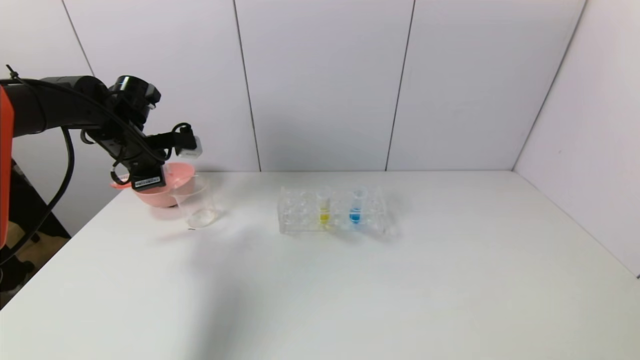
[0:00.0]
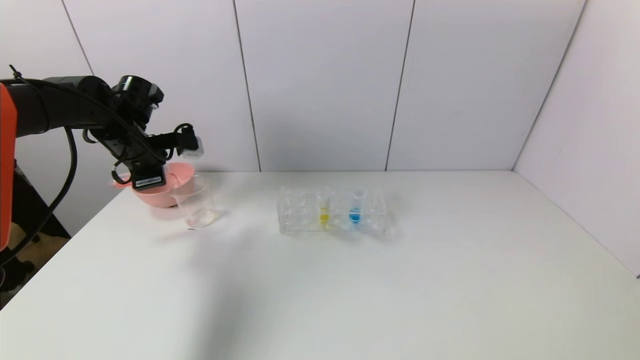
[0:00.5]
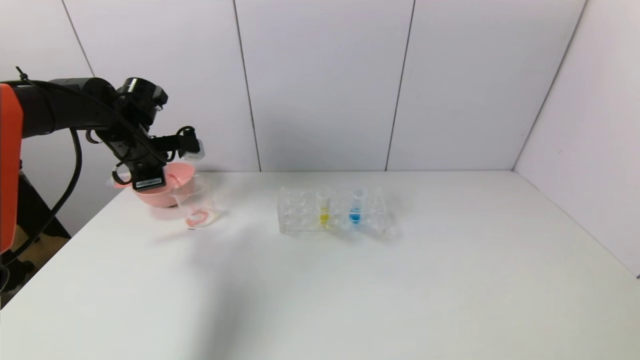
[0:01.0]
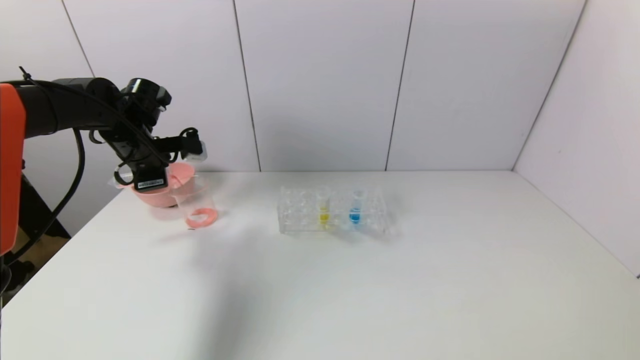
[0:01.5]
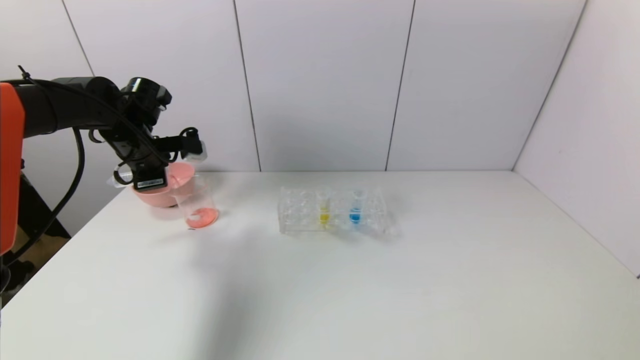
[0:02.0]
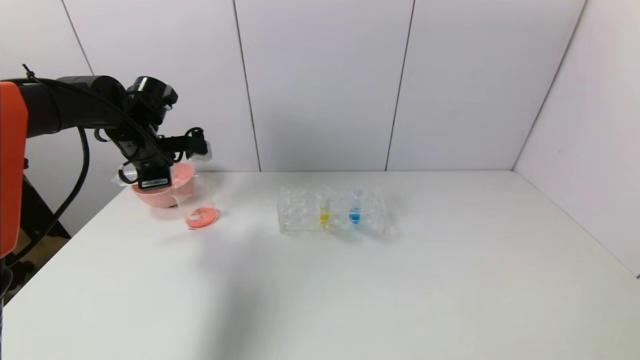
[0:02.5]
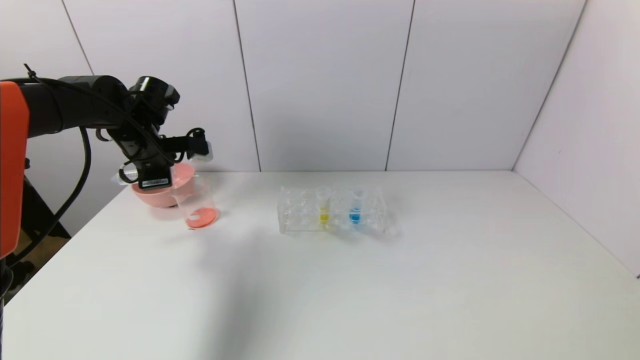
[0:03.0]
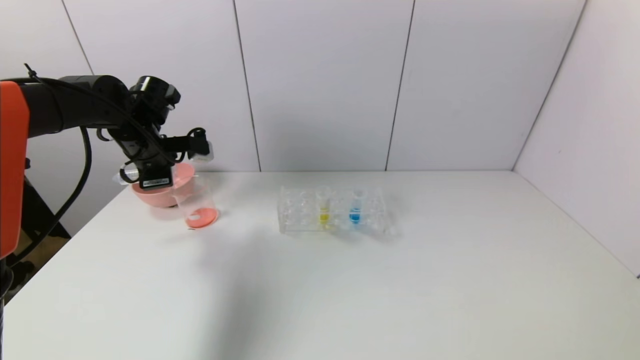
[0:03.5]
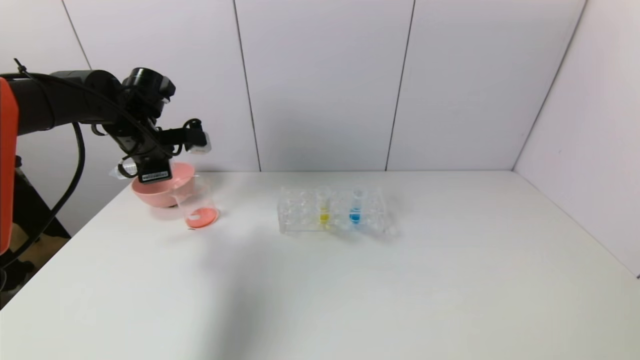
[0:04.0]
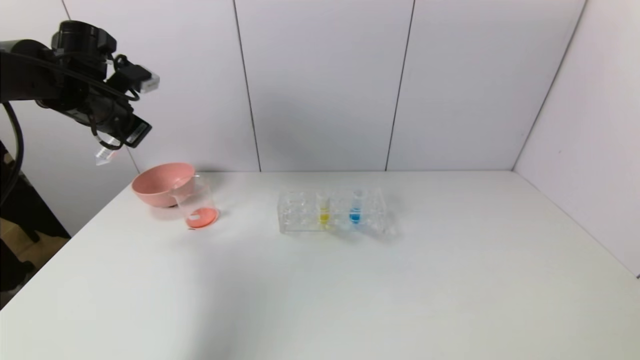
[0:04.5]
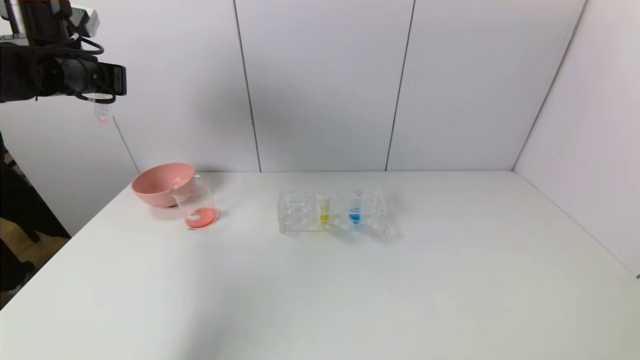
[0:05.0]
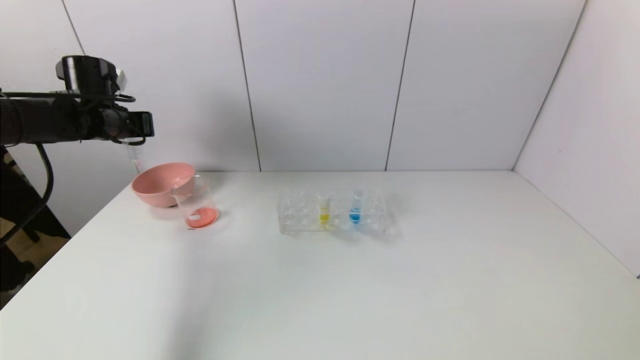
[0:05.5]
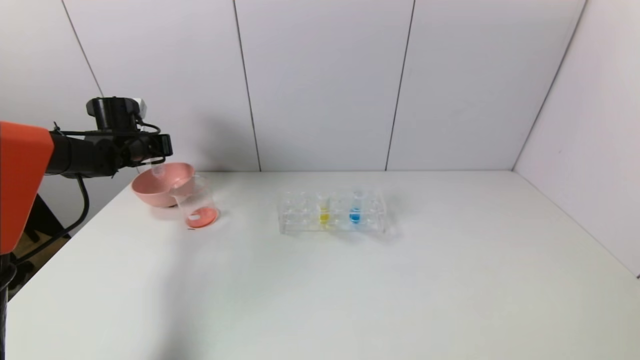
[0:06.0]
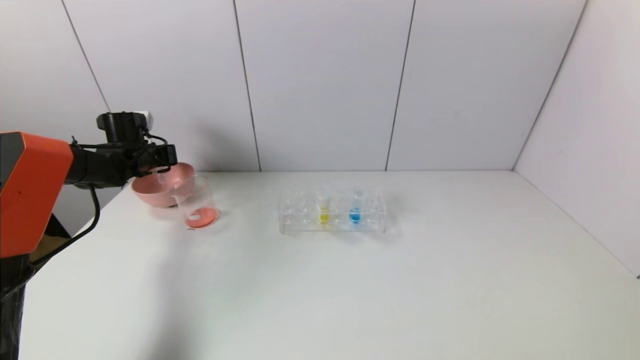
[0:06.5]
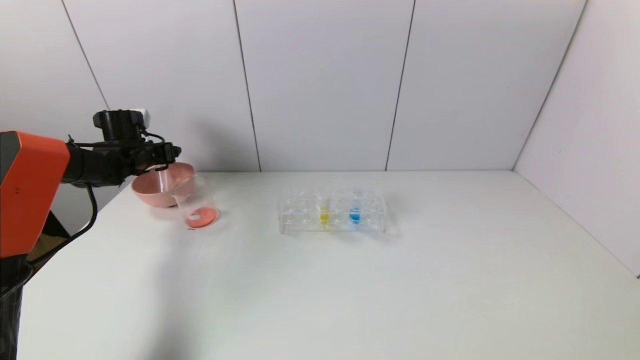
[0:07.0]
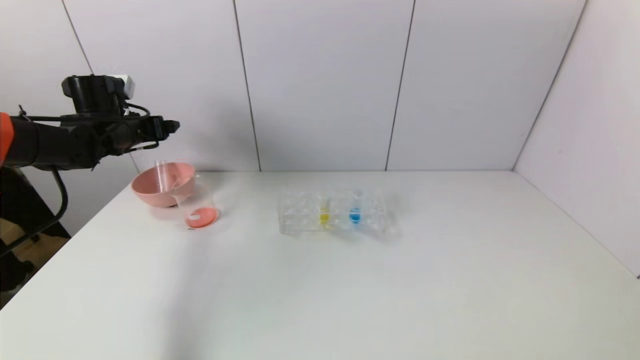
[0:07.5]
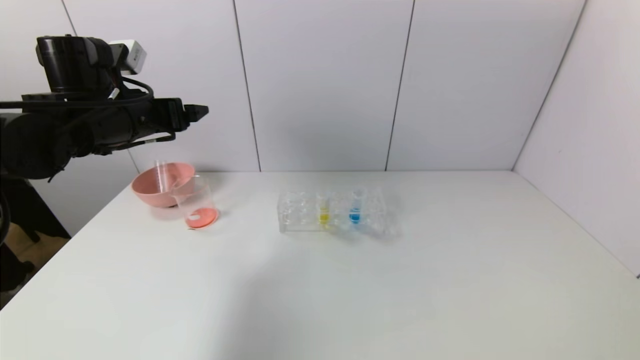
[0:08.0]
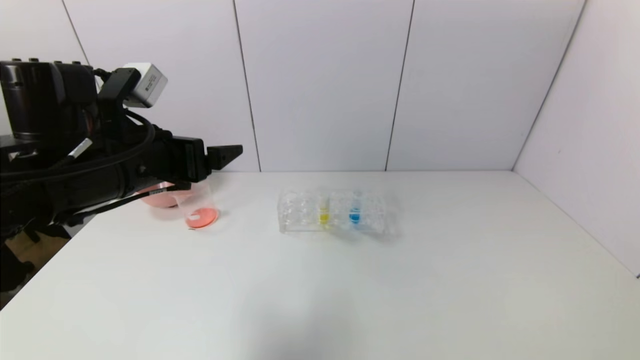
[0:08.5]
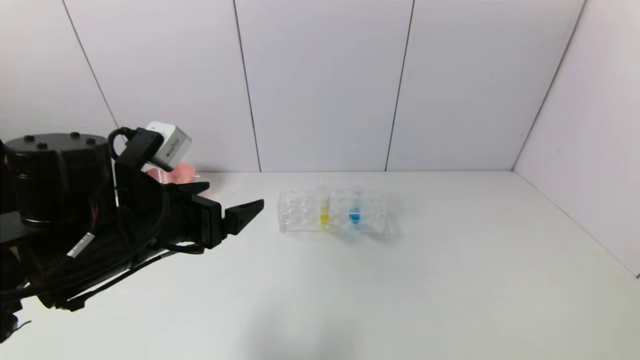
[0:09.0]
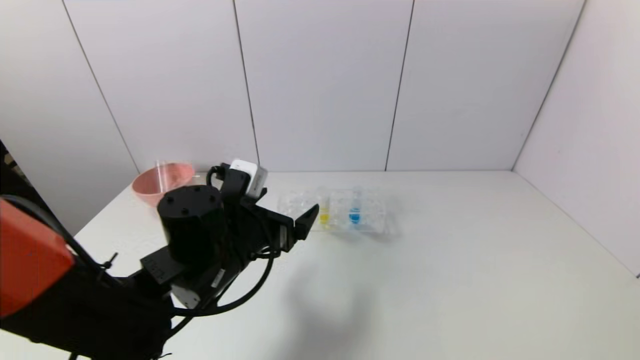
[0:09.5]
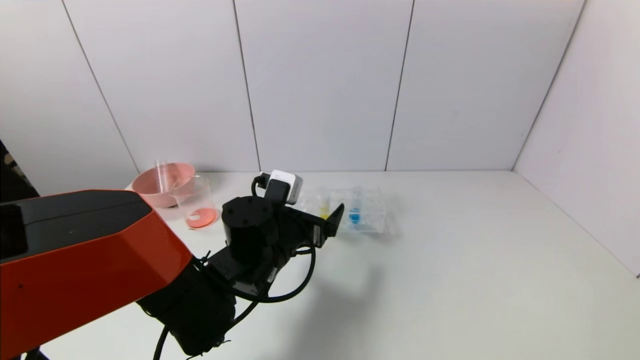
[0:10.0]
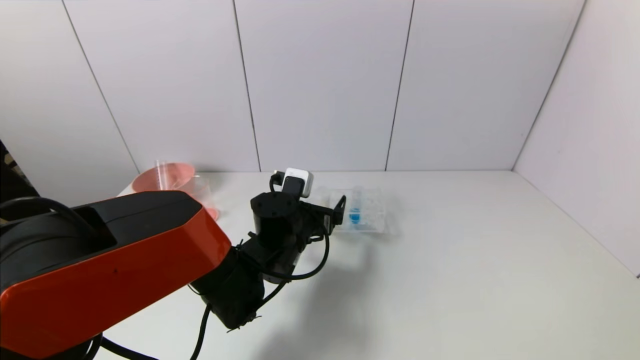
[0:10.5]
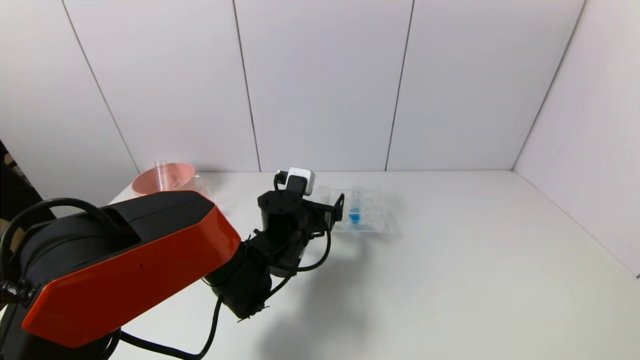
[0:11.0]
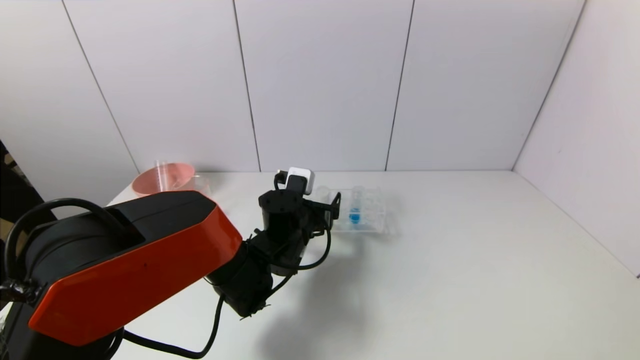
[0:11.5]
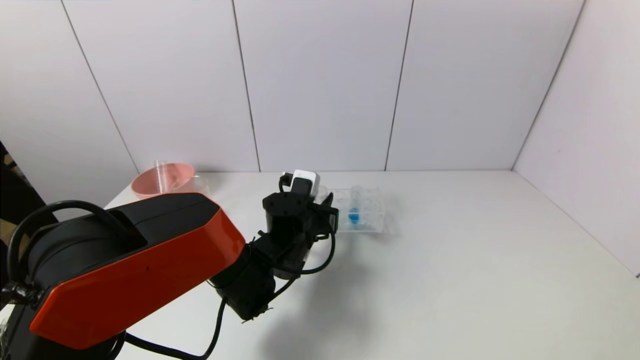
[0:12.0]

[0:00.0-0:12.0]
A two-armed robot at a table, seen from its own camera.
Task of the whole recording: pick up the test tube with yellow pigment and the test tube with red pigment by grippers and pour them into the beaker.
Step, 0:00.0 to 0:03.0: Pour the red reagent into the graduated cylinder with the left gripper.
Step, 0:03.5 to 0:06.5: Place the test tube into the pink bowl with the left gripper.
0:00.0 to 0:04.0: The grippers make only small movements.
0:04.0 to 0:06.0: The left gripper shifts approximately 10 cm to the left, forward and downward.
0:06.0 to 0:08.0: The left gripper heads backward, to the right and upward, covering about 20 cm, and opens its fingers.
0:08.0 to 0:10.0: The left gripper shifts some 25 cm to the right and downward.
0:10.0 to 0:12.0: The left gripper travels forward by roughly 5 cm, and closes.

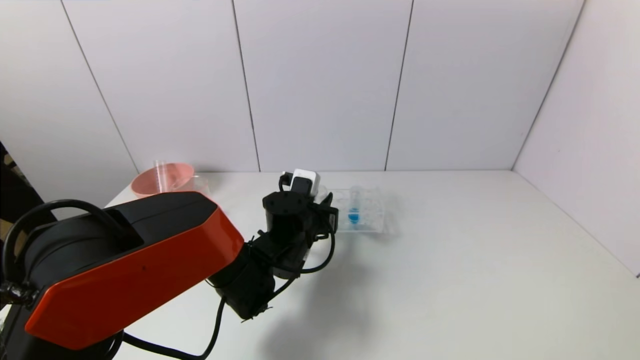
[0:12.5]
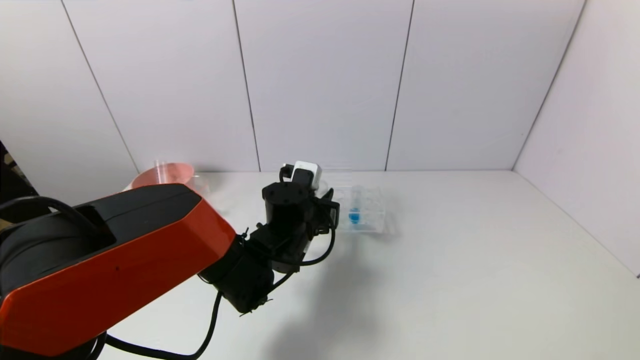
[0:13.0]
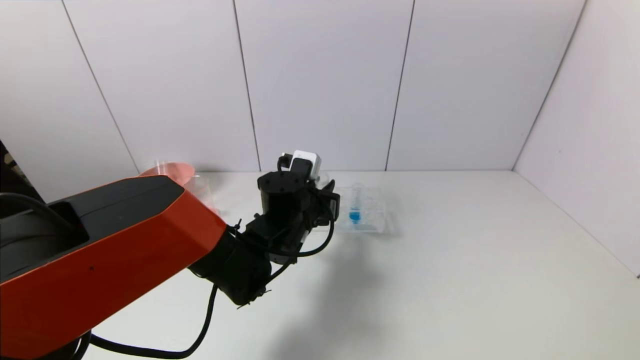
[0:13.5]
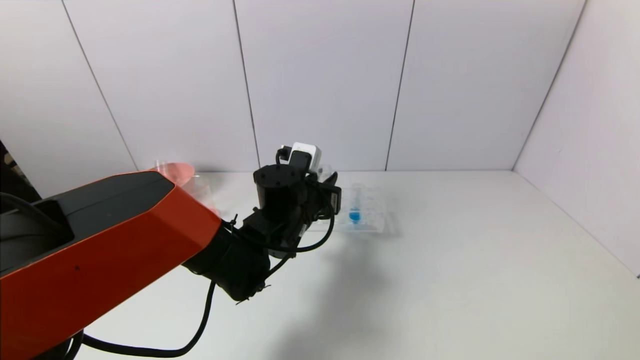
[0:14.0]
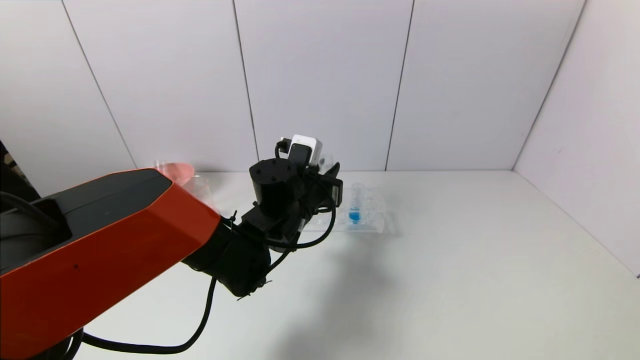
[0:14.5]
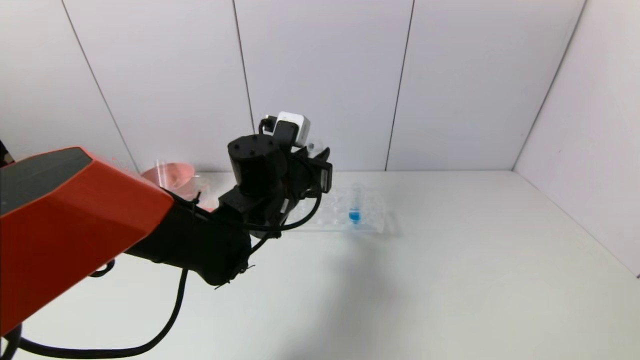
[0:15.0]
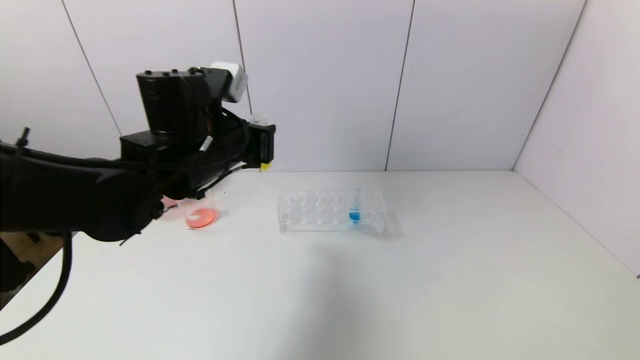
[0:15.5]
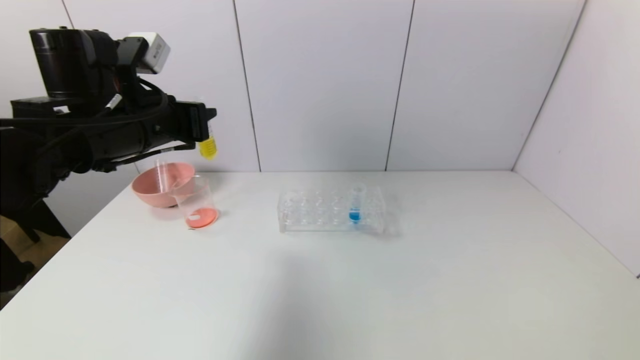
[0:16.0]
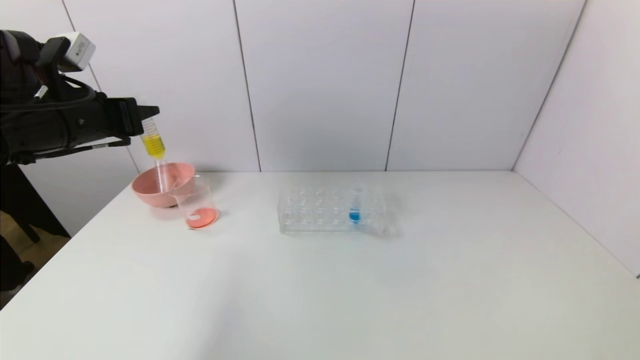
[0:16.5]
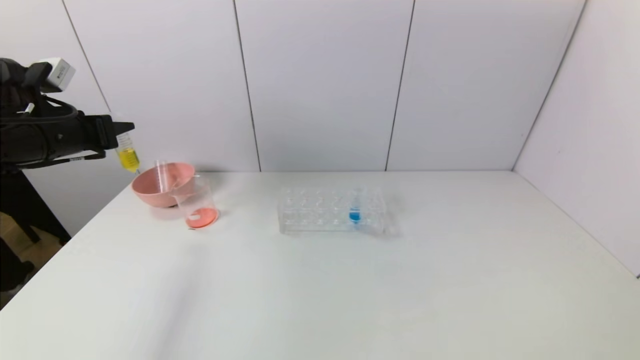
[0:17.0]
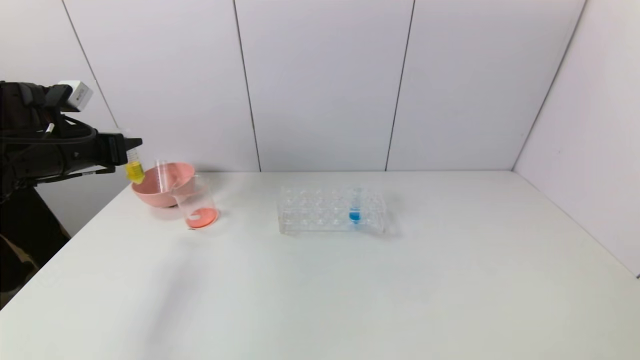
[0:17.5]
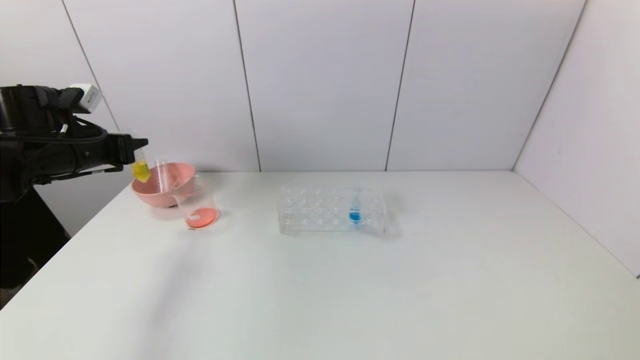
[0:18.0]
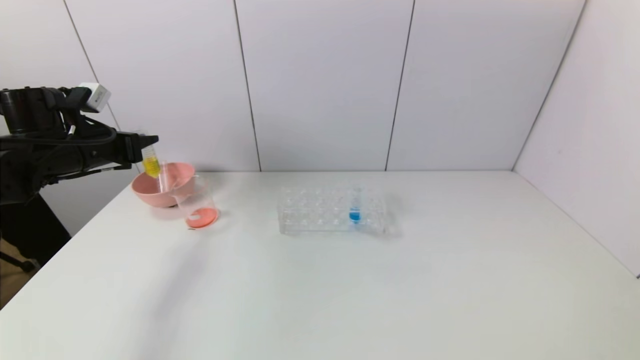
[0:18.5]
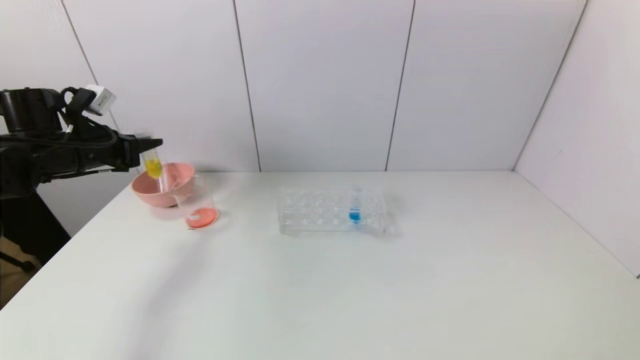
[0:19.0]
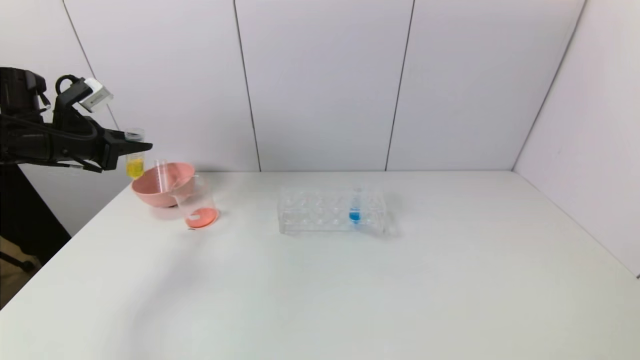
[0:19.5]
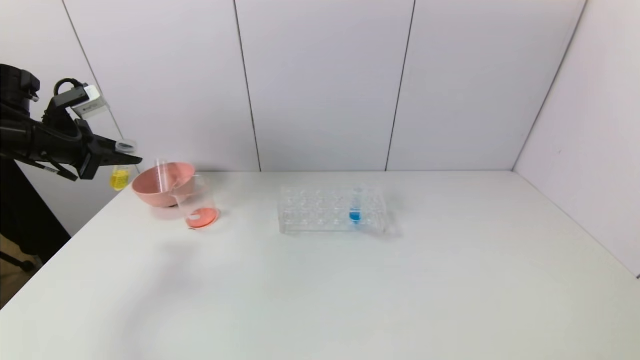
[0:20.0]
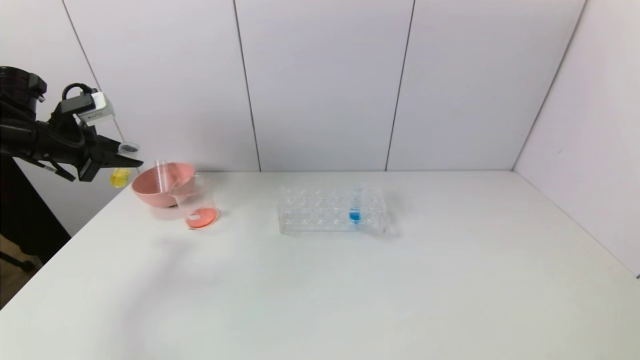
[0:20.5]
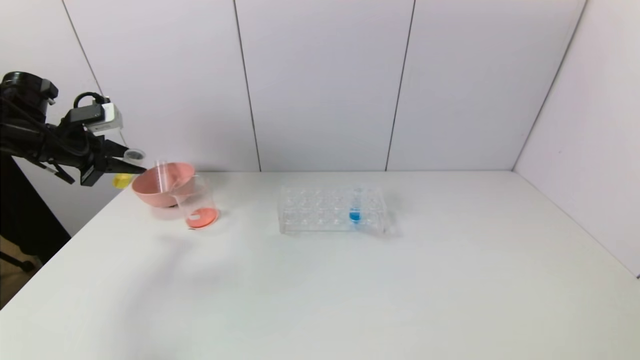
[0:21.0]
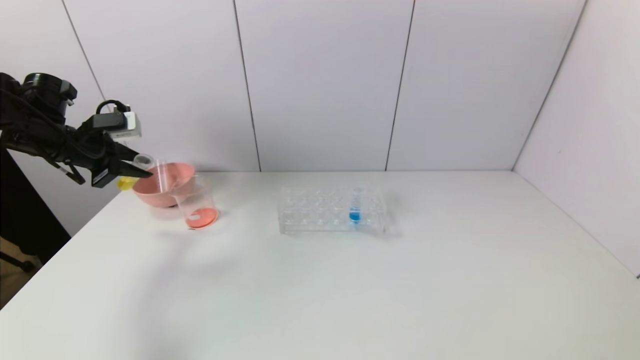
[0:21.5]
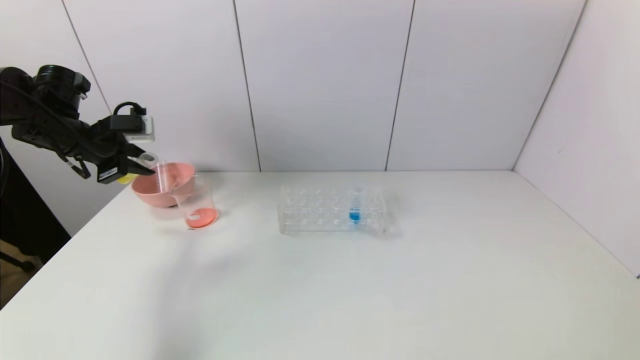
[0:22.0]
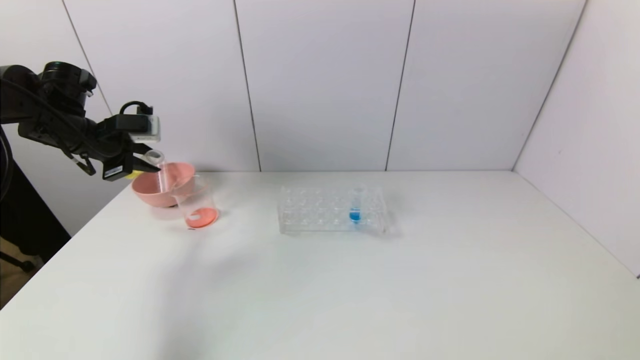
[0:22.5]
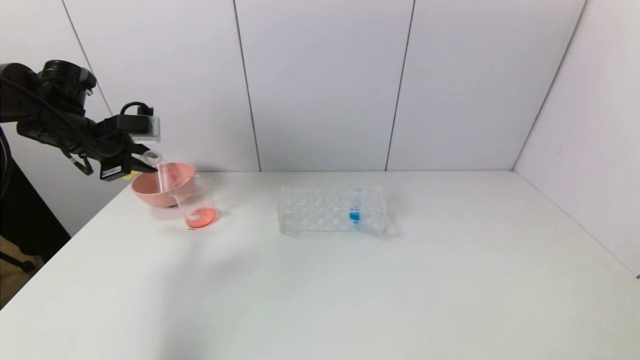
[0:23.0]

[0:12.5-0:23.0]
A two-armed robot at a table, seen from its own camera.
Task of the whole recording: pick up the test tube with yellow pigment and the test tube with red pigment by grippers and pour them into the beaker.
0:12.5 to 0:14.5: The left gripper goes approximately 5 cm upward.
0:14.5 to 0:16.5: The left gripper is displaced to the left and upward by some 30 cm.
0:16.5 to 0:19.0: The left gripper is displaced to the left, downward and forward by approximately 10 cm.
0:21.0 to 0:23.0: There are only small adjustments of the grippers.
